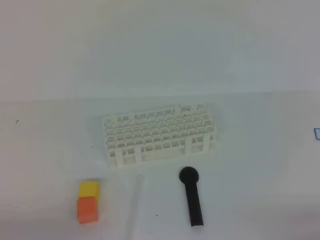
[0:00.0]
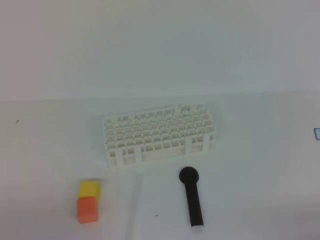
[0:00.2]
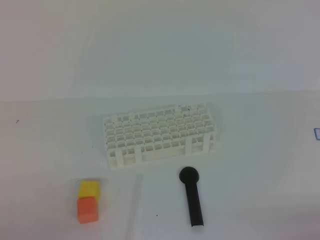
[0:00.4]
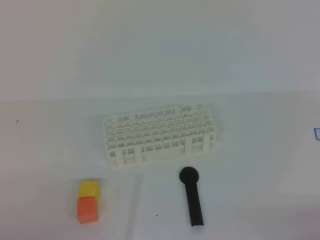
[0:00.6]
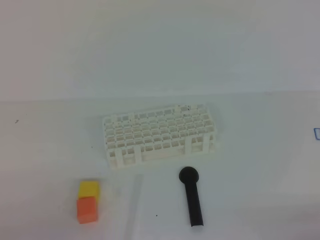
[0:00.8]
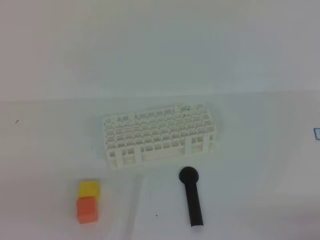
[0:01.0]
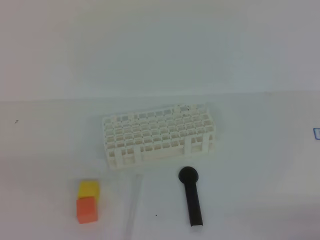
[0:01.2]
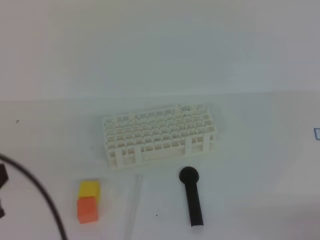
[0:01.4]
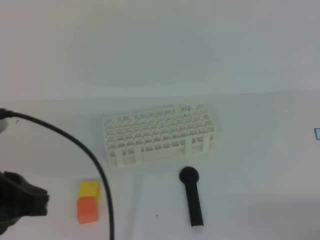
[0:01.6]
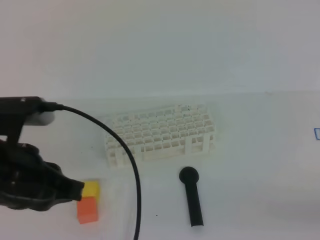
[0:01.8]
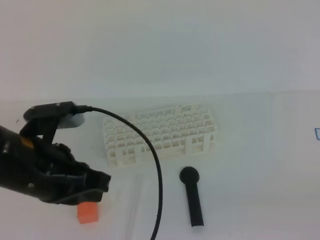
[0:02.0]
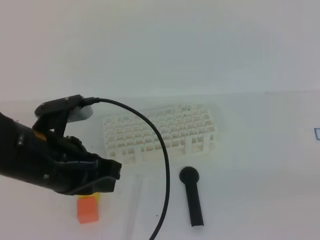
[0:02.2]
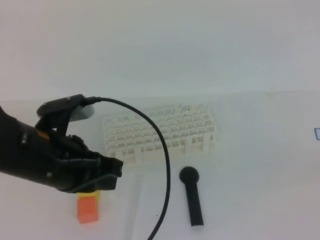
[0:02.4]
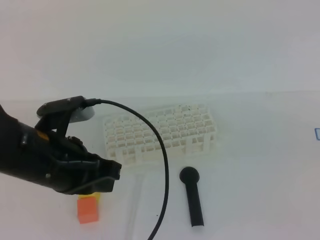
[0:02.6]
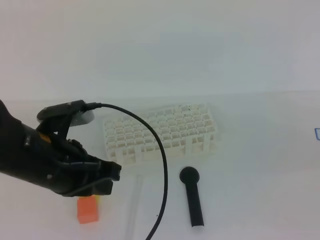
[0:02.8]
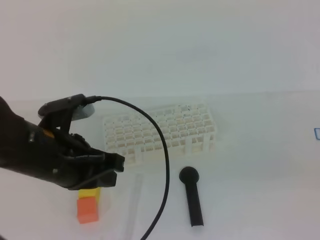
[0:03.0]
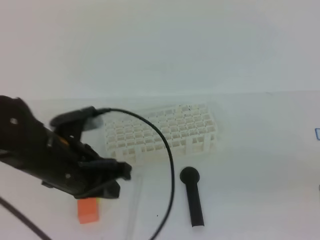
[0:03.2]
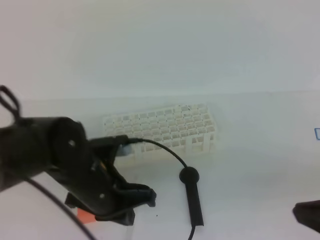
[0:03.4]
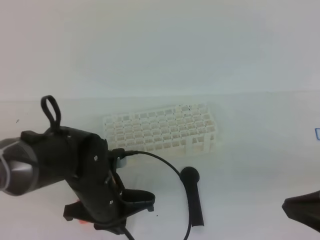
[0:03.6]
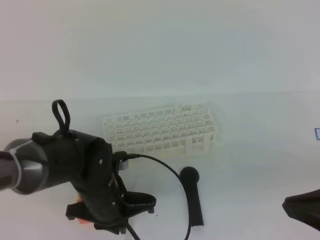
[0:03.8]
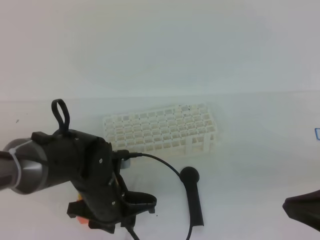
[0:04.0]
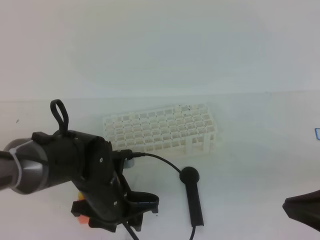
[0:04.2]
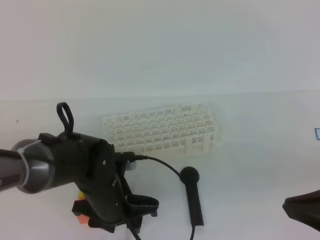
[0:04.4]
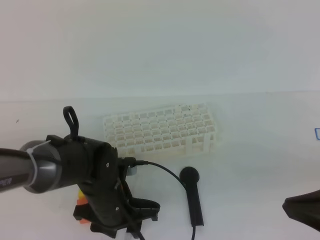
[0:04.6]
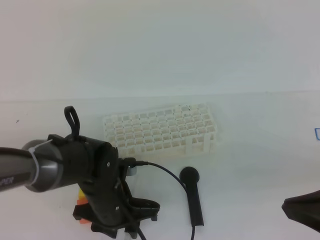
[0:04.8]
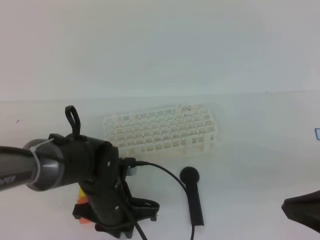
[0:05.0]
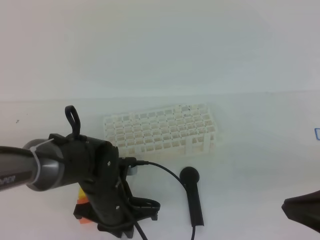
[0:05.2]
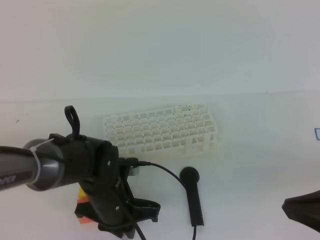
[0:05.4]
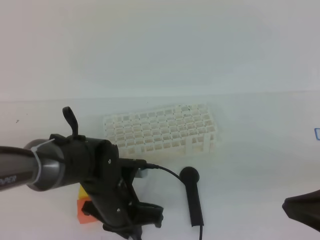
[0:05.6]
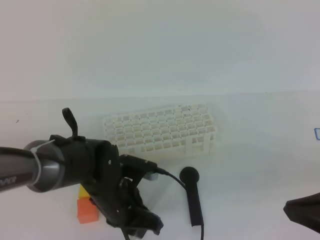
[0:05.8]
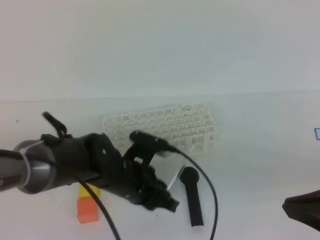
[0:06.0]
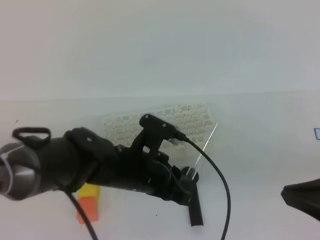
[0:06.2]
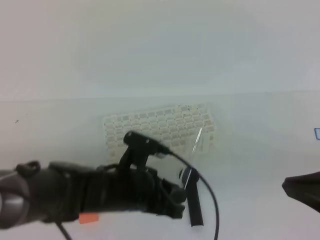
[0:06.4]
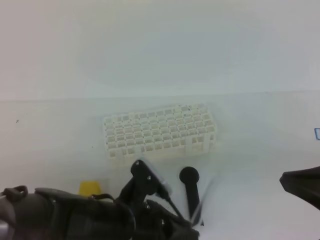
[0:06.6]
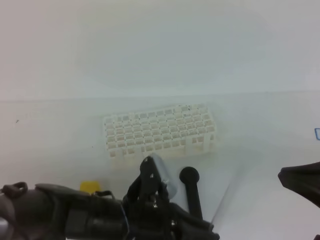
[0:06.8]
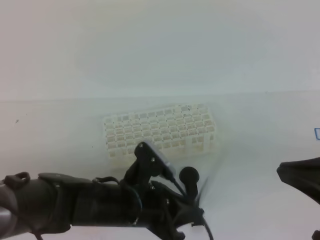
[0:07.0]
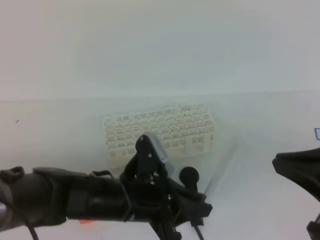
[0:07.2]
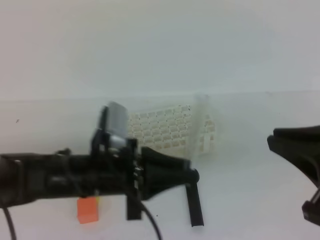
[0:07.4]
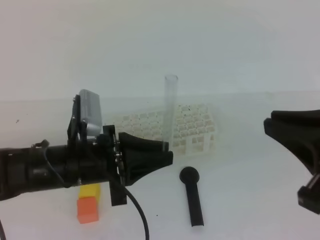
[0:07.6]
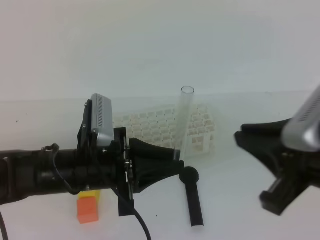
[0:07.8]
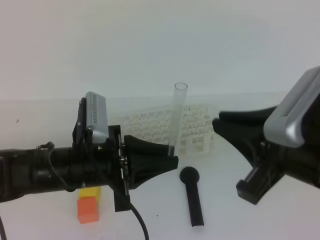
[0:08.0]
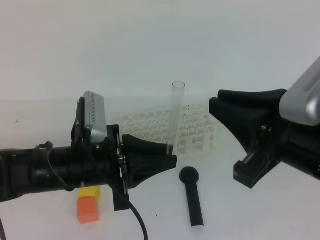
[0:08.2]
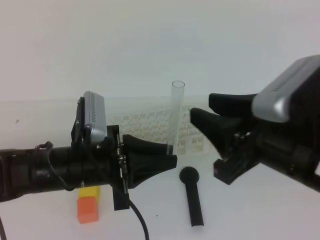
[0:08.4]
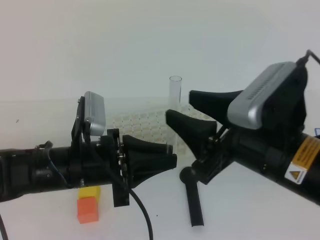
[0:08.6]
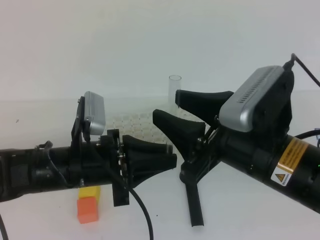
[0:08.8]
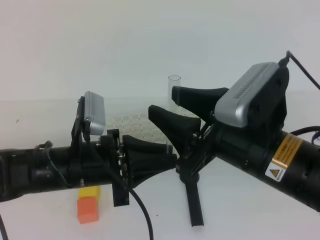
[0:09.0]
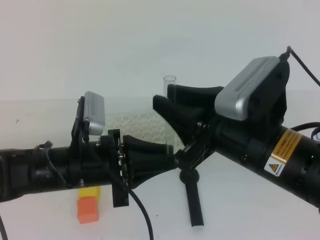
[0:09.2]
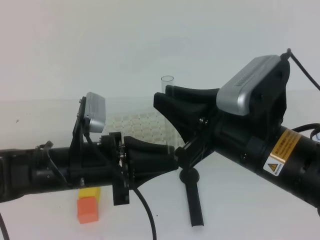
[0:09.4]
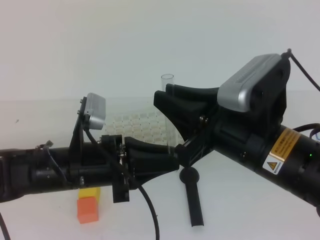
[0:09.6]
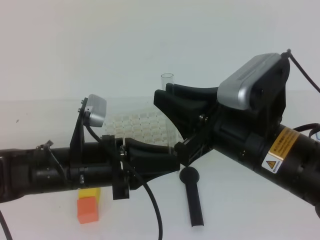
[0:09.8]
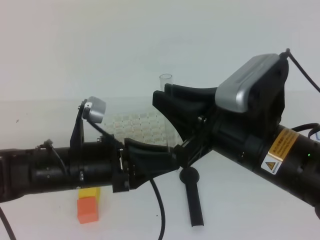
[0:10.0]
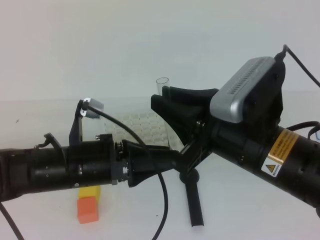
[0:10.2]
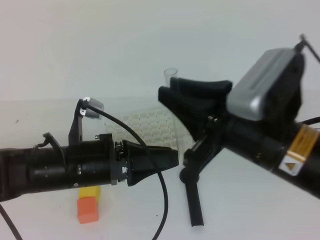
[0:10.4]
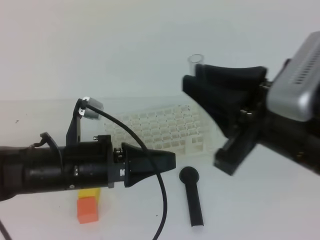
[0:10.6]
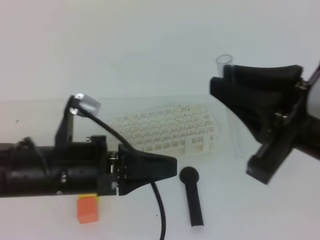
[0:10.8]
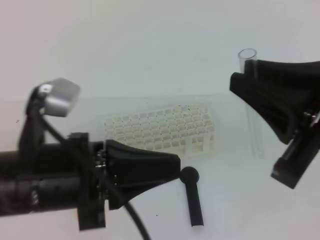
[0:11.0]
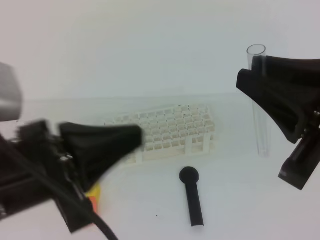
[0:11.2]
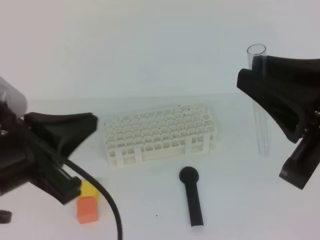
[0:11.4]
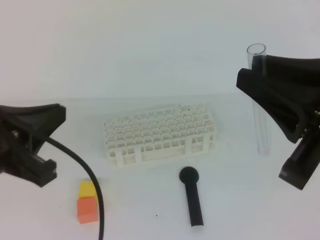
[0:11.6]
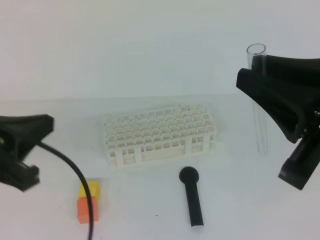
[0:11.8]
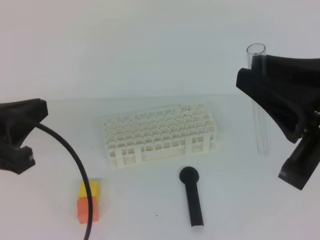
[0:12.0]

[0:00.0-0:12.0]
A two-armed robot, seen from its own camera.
0:00.0 to 0:01.6: The left gripper shifts approximately 15 cm upward and forward.
0:01.6 to 0:03.0: The right gripper travels upward by some 15 cm; the left gripper travels forward, to the right and downward by some 15 cm.
0:03.0 to 0:04.4: The right gripper heads to the left, covering about 5 cm; the left gripper shifts roughly 15 cm downward and to the right, and opens.
0:04.4 to 0:06.0: The left gripper closes up.
0:06.0 to 0:07.6: The left gripper goes some 10 cm upward and to the left.
0:07.6 to 0:09.0: The right gripper heads to the left and forward, covering roughly 10 cm, and opens.
0:09.0 to 0:10.4: The left gripper opens. The right gripper closes up.
0:10.4 to 0:12.0: The right gripper is displaced to the right, upward and backward by approximately 10 cm. Meanwhile the left gripper is displaced to the left, upward and backward by roughly 15 cm, and closes its fingers.

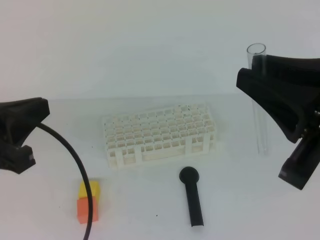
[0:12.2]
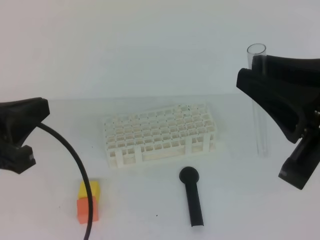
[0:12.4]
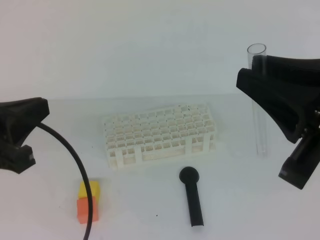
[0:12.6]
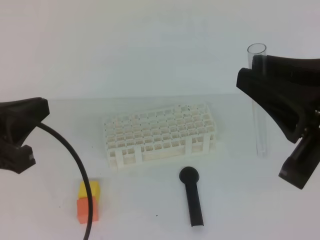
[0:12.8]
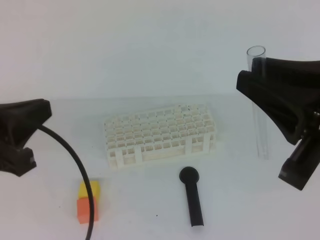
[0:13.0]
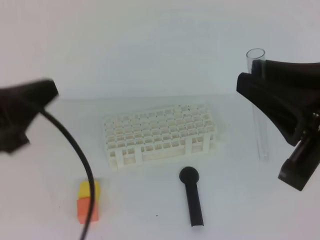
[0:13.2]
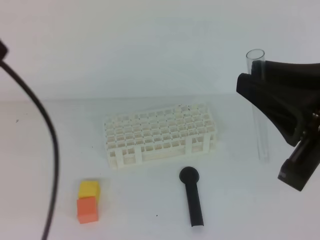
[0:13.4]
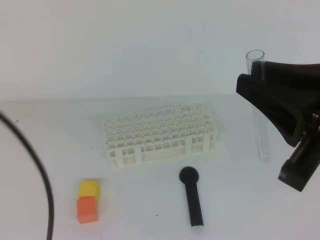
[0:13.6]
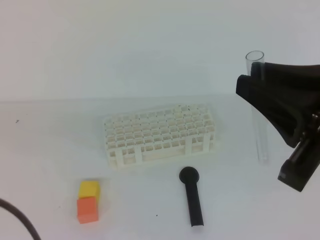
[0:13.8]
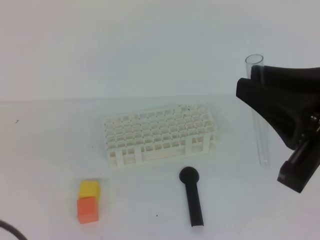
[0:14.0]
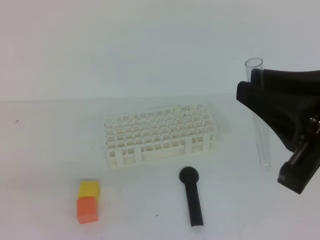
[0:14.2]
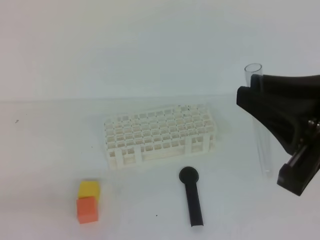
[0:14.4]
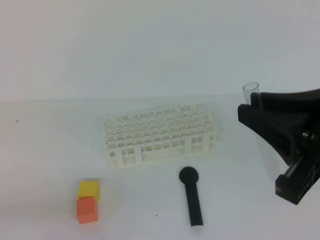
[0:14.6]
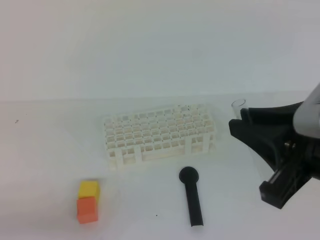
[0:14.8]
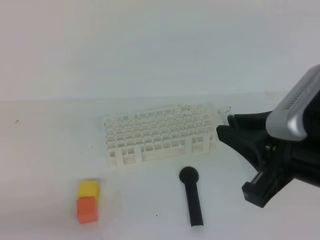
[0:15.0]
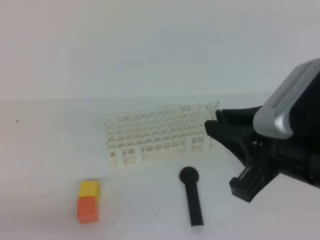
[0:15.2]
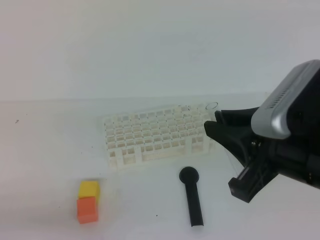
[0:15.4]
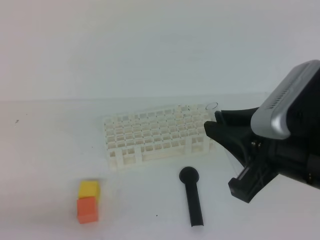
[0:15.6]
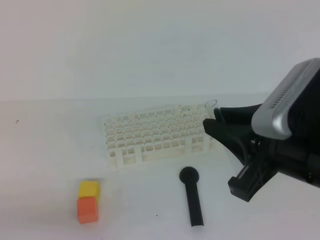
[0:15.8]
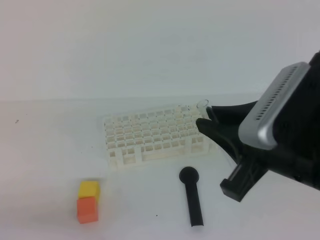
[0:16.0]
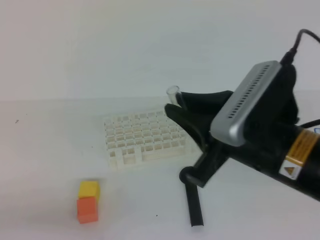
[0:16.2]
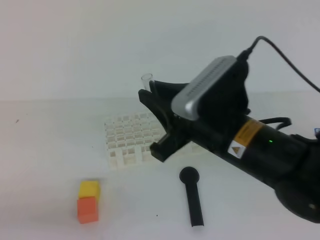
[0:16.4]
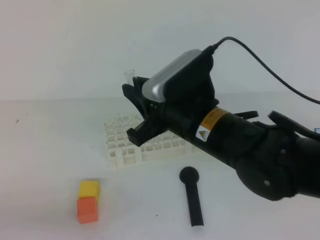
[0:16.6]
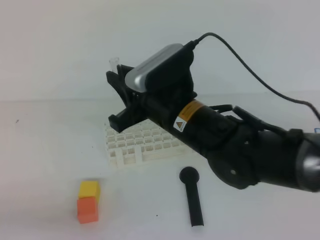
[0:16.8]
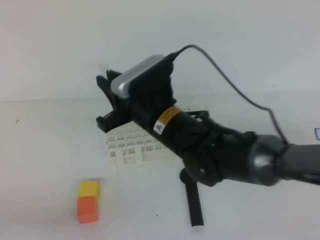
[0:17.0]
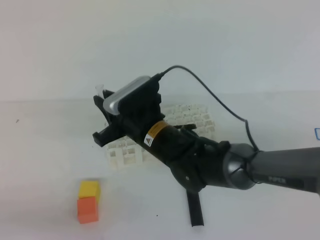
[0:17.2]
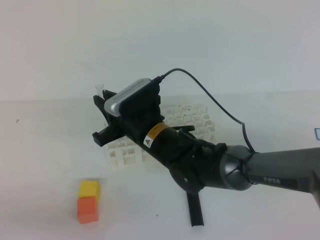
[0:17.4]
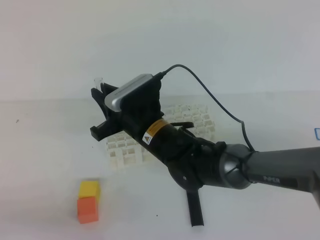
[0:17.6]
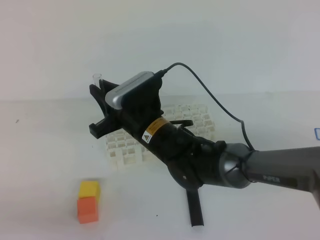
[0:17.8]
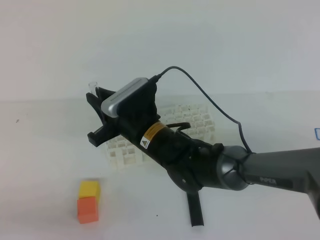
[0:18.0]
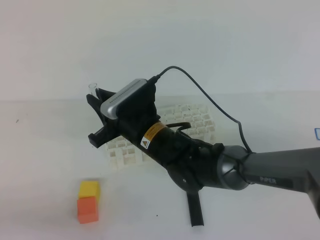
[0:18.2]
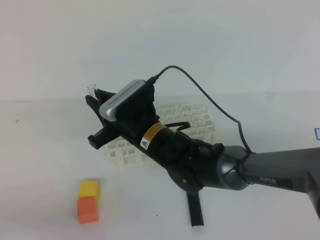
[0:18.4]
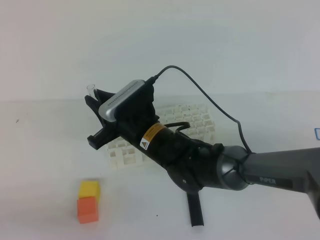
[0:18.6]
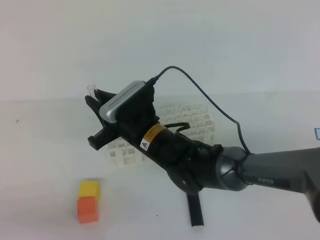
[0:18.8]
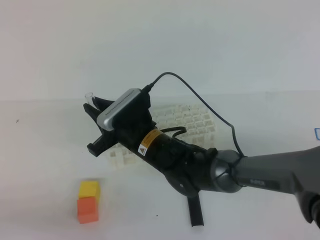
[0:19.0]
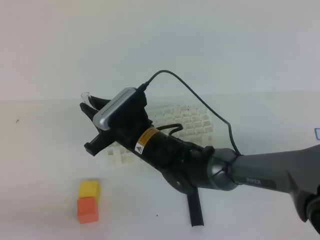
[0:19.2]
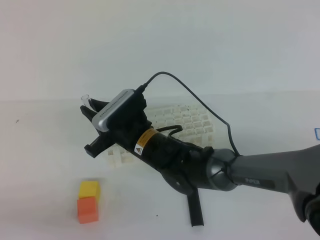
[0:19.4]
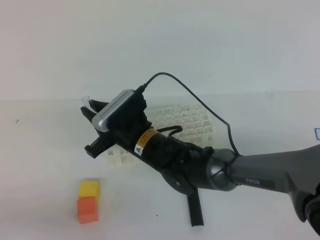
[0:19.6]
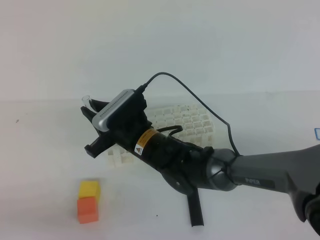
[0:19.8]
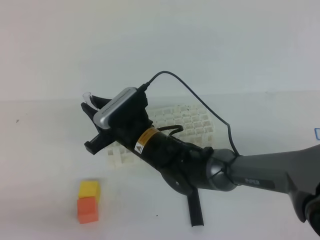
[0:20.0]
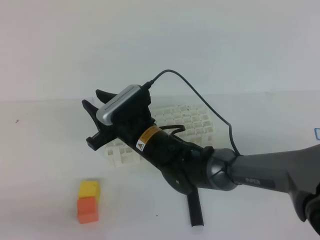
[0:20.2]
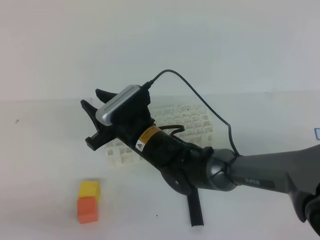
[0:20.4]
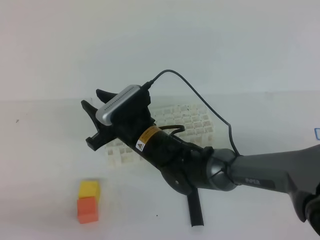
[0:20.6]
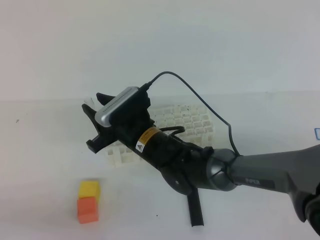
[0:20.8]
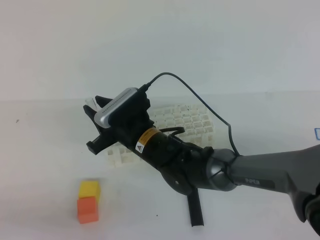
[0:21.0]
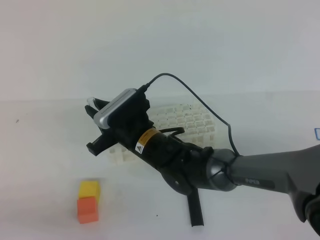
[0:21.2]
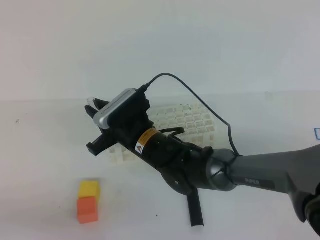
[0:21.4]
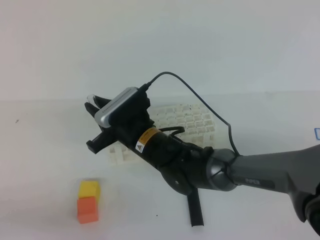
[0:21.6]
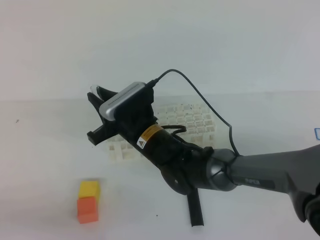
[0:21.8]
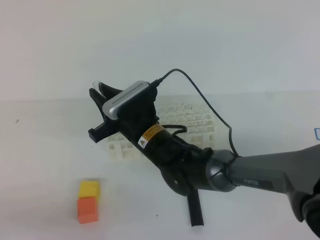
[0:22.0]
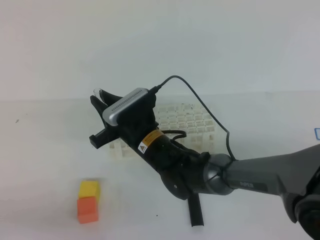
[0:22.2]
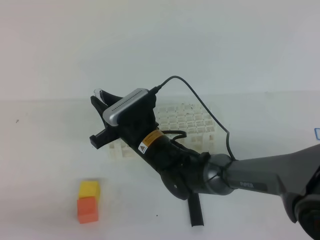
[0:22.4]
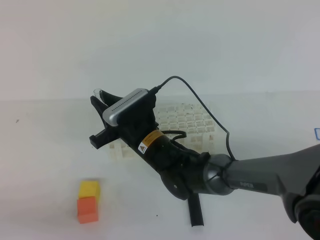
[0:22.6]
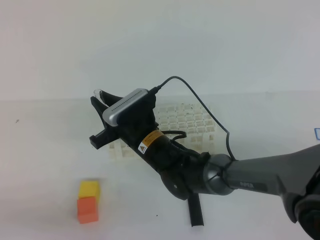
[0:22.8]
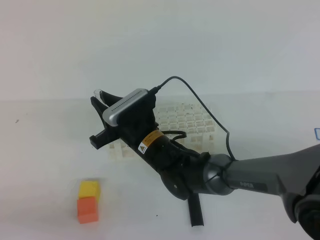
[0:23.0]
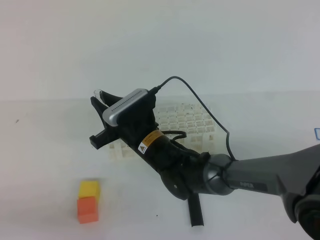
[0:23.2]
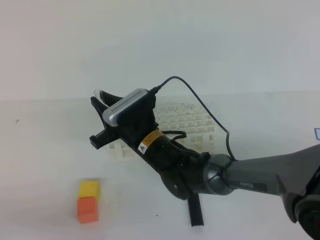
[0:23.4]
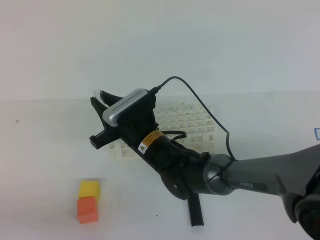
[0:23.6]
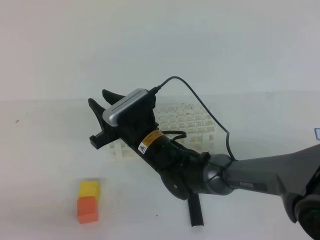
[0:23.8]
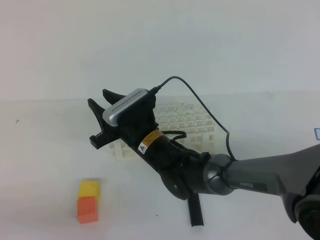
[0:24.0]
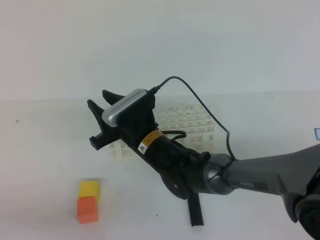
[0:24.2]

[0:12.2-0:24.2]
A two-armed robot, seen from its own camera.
0:12.2 to 0:13.8: The left gripper shifts about 10 cm backward.
0:13.8 to 0:15.2: The right gripper ends up some 5 cm from where it was. The left gripper heads downward, covering about 20 cm.
0:15.2 to 0:16.6: The right gripper moves to the left and forward, about 15 cm.
0:16.6 to 0:18.2: The right gripper is displaced downward, to the left and forward by some 15 cm.
0:18.2 to 0:19.8: The grippers move only a little.
0:19.8 to 0:21.2: The right gripper opens and closes again.
0:21.2 to 0:22.6: The grippers move only a little.
0:22.6 to 0:24.2: The right gripper opens.
